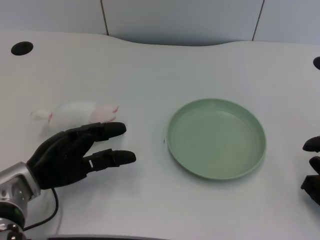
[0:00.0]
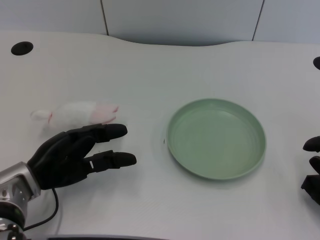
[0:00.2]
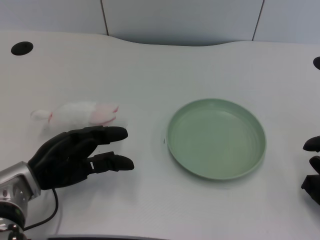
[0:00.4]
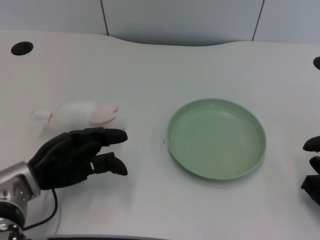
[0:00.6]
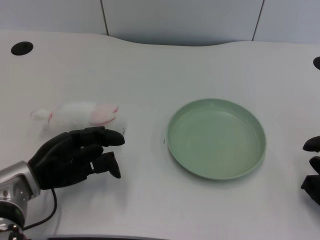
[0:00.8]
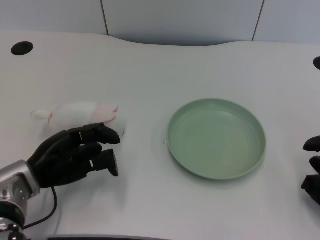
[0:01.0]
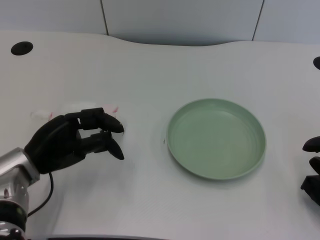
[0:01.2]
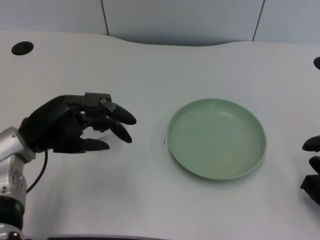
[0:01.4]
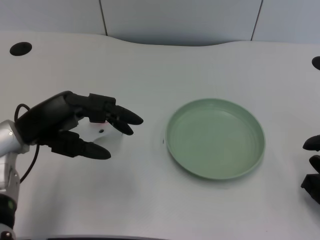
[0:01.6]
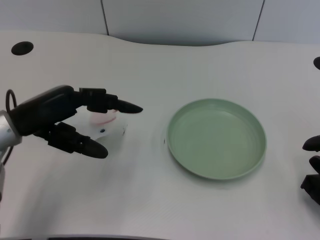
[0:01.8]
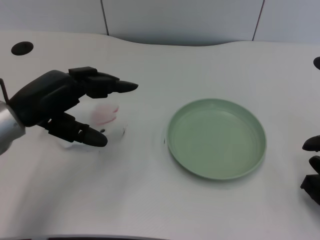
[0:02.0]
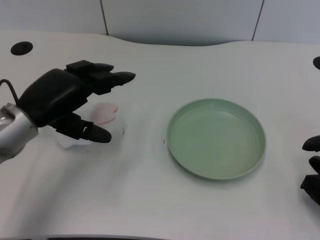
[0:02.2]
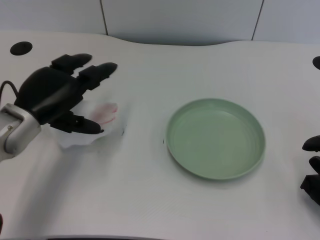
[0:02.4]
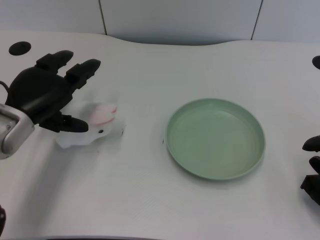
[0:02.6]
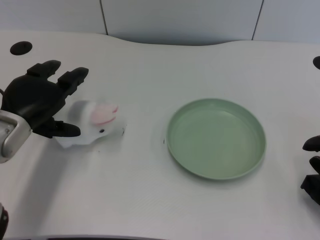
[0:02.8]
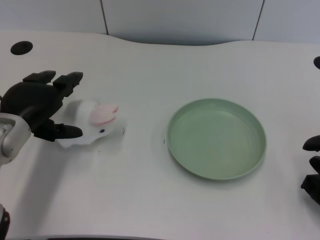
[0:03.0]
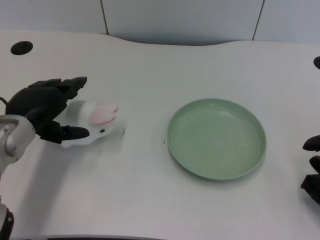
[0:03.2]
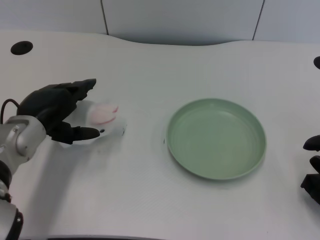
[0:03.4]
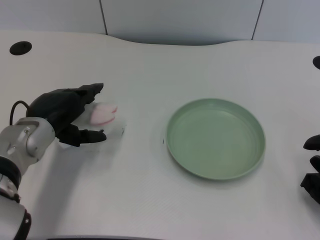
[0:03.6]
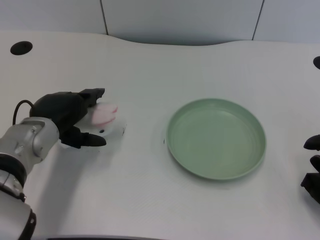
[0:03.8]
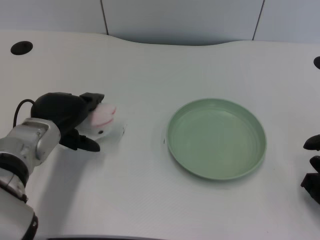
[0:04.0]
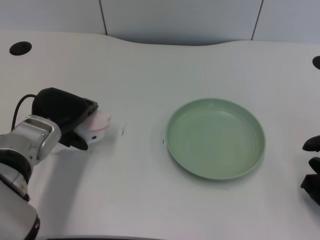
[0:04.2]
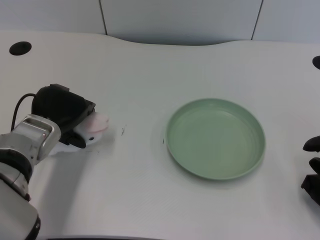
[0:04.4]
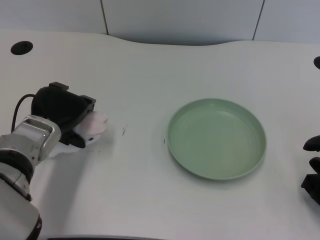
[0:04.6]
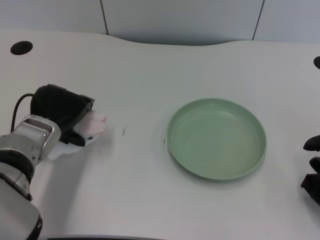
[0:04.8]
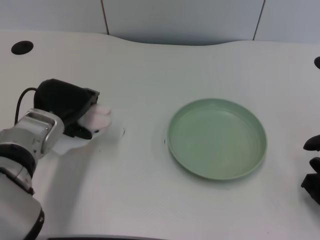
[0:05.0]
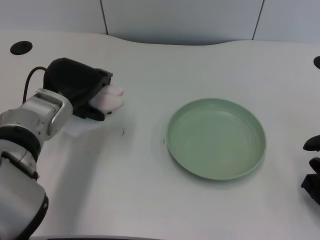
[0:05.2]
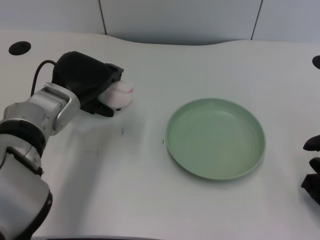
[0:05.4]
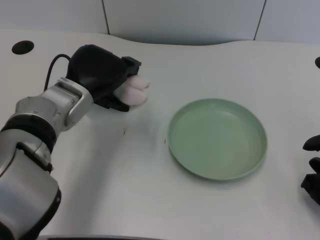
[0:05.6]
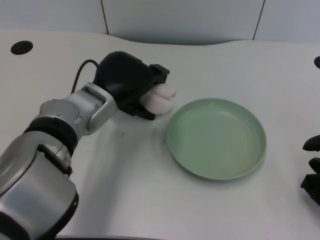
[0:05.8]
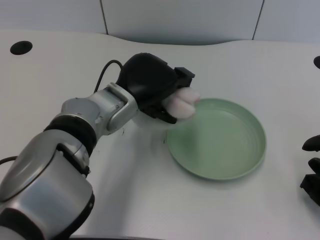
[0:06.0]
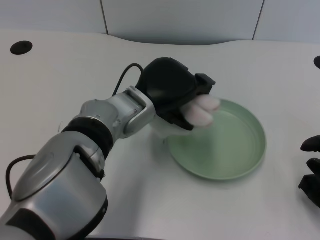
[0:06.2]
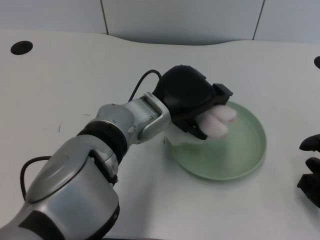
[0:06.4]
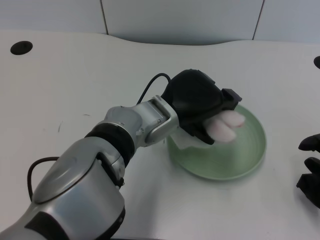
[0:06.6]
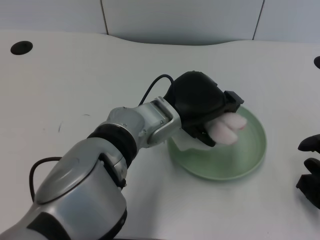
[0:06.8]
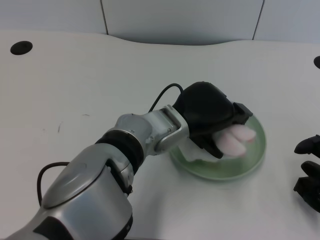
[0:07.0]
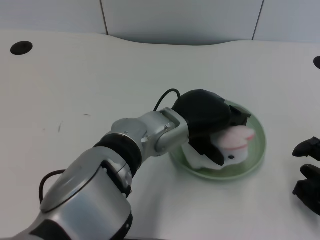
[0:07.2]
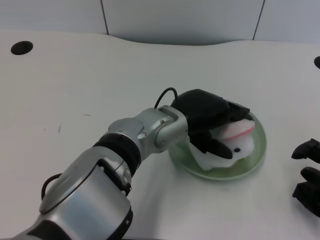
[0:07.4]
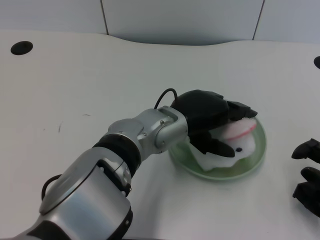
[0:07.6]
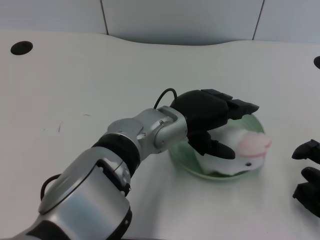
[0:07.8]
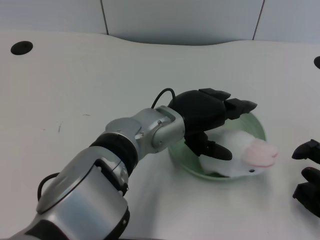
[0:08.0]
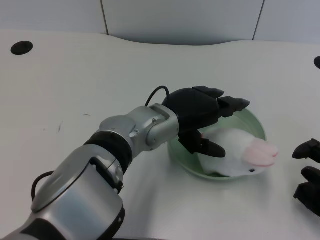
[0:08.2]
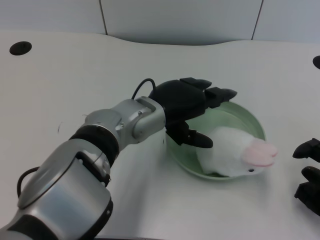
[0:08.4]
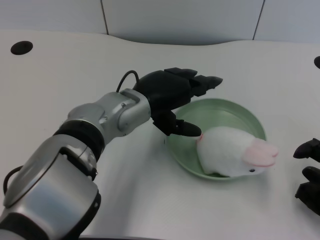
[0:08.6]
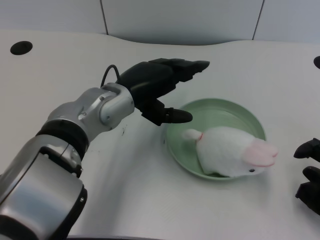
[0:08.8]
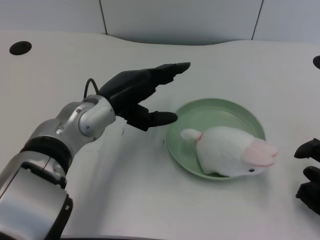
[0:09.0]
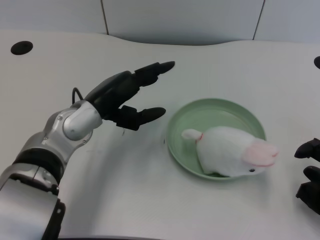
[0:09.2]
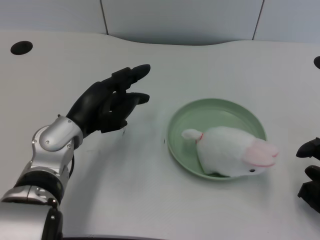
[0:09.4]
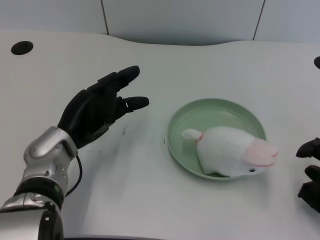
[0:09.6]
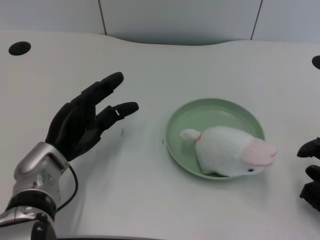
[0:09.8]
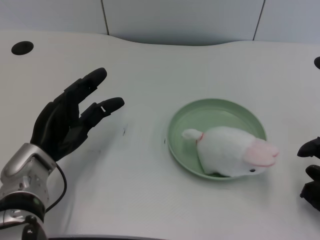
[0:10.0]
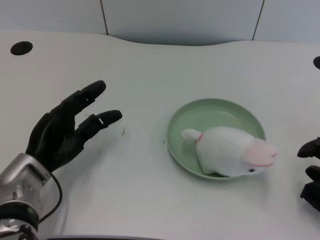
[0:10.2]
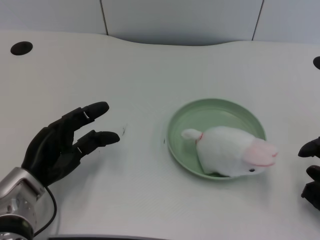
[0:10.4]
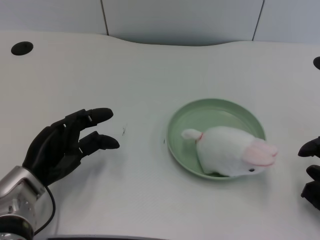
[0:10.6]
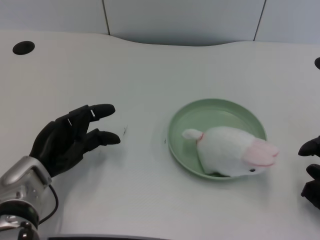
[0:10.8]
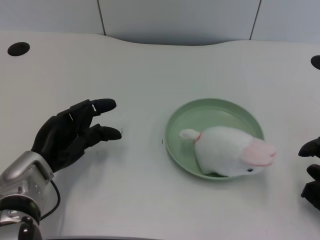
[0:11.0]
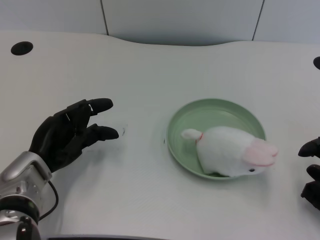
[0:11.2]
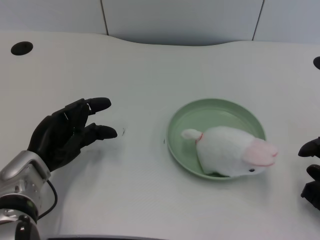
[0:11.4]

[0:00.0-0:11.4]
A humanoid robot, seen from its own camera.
Task of the whole recording: pick up the rabbit doll from the table and place it on the plate.
Step, 0:00.0 to 0:05.2: Grasp the rabbit doll with the left gripper.
Step, 0:05.4 to 0:07.8: Place the rabbit doll into the plate with the left gripper.
0:04.2 to 0:05.6: The left hand shifts roughly 5 cm to the right.
0:05.6 to 0:07.2: The left hand moves to the right, about 15 cm.
0:07.2 to 0:08.6: The left hand goes approximately 5 cm to the left.
0:08.6 to 0:10.0: The left hand heads to the left and downward, covering approximately 15 cm.
0:10.0 to 0:11.4: The hands stay close to where they were, moving slightly.

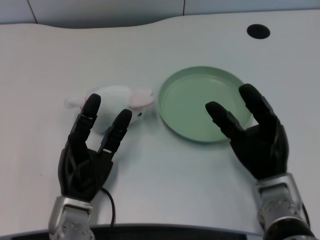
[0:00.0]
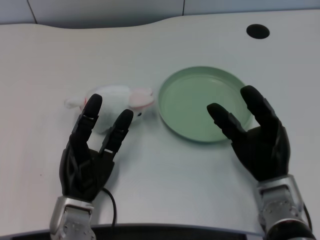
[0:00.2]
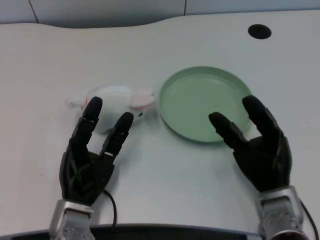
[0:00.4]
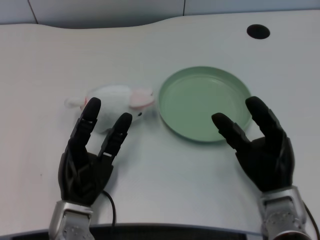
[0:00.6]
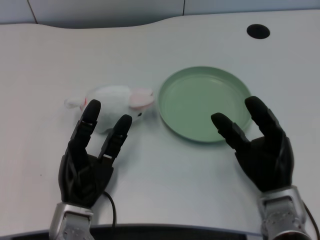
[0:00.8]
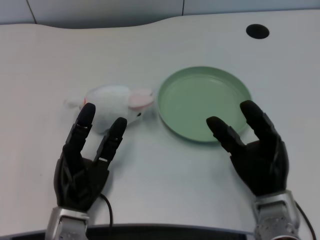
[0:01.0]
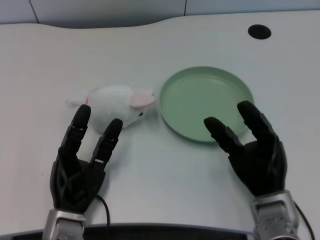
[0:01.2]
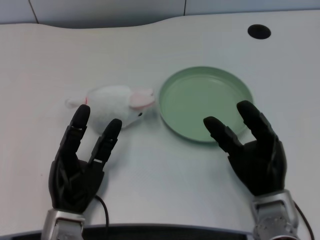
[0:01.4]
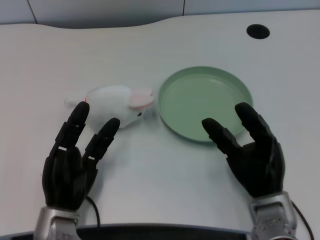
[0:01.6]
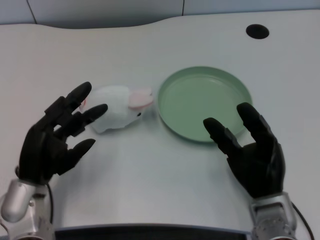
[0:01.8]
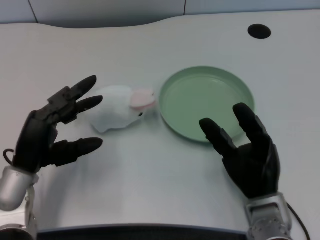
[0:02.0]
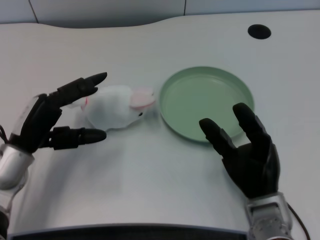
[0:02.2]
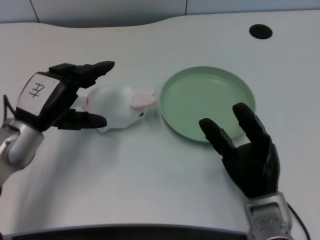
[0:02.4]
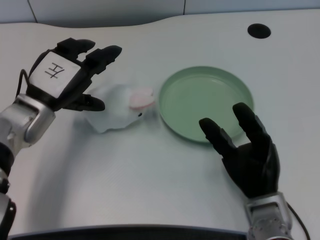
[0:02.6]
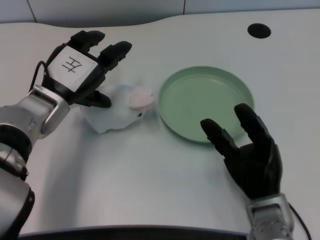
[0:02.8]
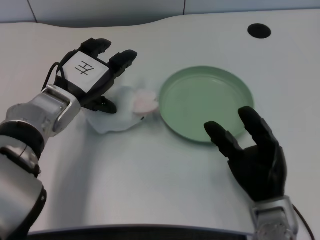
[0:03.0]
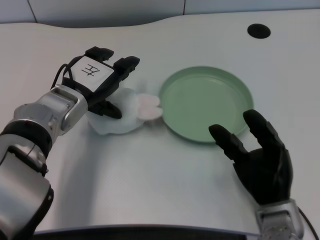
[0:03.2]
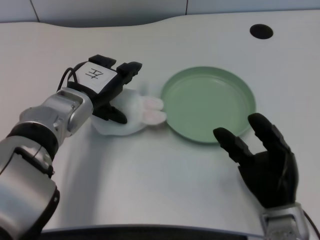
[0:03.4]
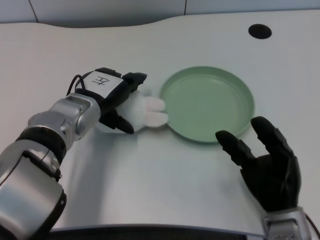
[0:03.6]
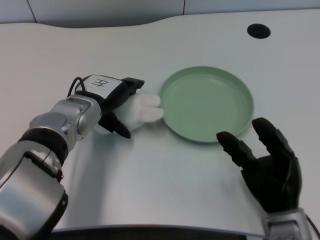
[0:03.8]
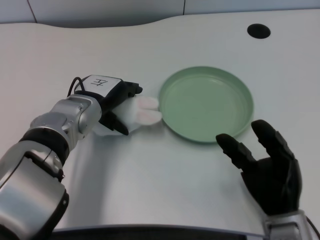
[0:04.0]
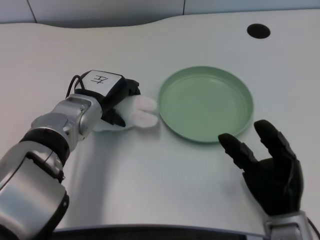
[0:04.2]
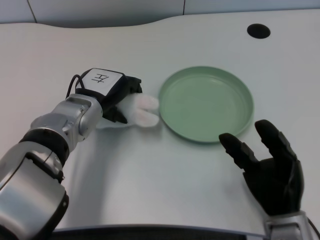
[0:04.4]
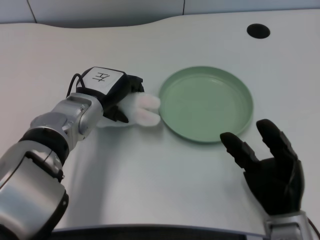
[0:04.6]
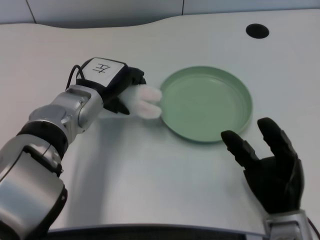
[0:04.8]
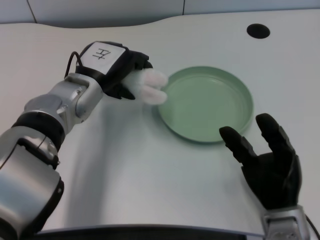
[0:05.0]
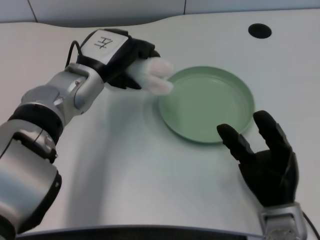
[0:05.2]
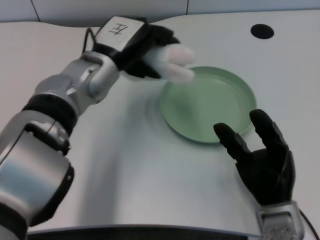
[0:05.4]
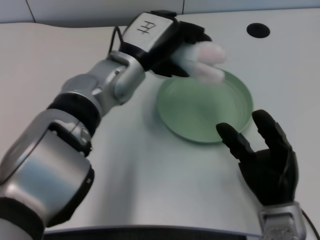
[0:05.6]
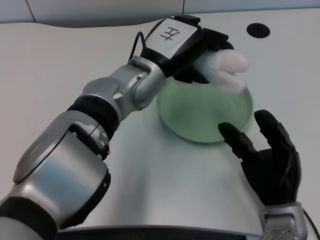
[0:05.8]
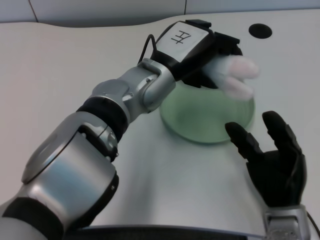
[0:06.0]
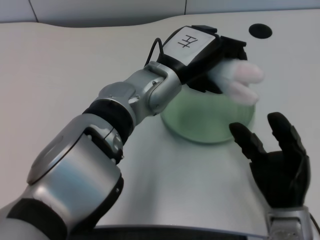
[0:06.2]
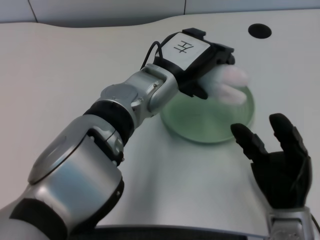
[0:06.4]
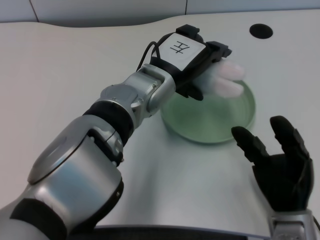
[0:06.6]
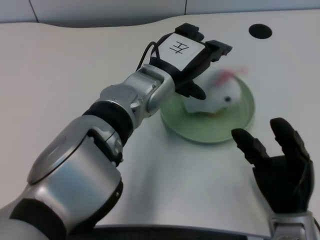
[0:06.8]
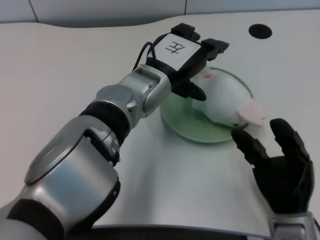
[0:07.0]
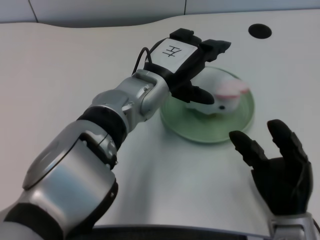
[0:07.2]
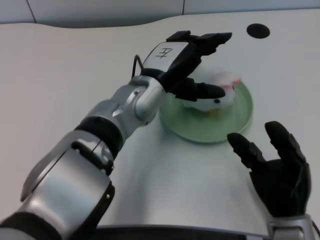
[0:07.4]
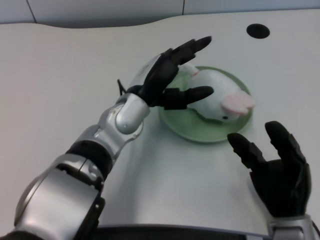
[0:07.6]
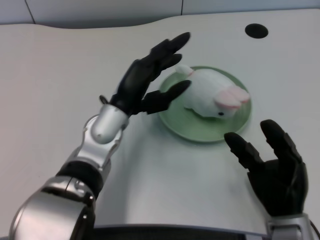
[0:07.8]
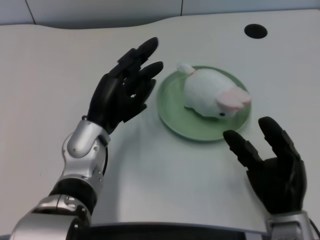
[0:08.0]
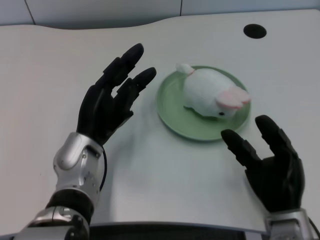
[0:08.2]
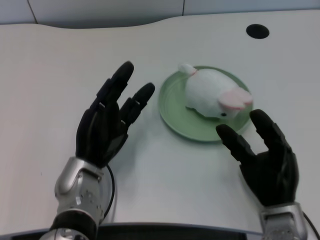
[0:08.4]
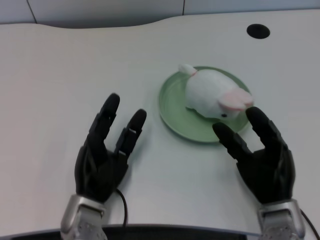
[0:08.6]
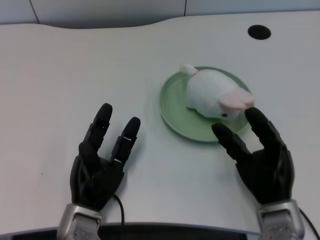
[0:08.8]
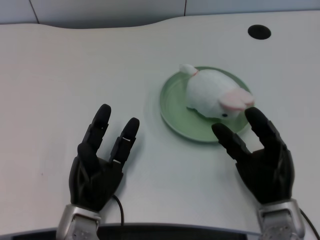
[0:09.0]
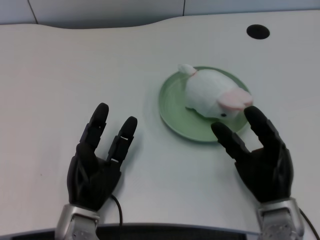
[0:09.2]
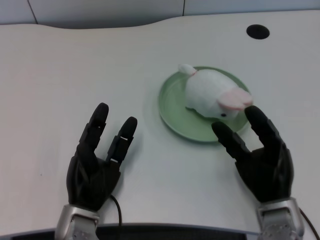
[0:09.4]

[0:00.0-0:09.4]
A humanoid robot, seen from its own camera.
Task of the whole recording: pick up the rabbit doll from the table and place it on the plate.
Step, 0:01.6 to 0:04.8: Grasp the rabbit doll with the left gripper.
Step, 0:05.0 to 0:07.0: Place the rabbit doll into the plate with the left gripper.
0:01.6 to 0:03.2: The left hand travels forward and upward by about 20 cm.
0:04.8 to 0:06.2: The left hand shifts roughly 10 cm to the right.
0:06.2 to 0:07.8: The left hand is displaced to the left and downward by roughly 10 cm.
0:07.8 to 0:09.4: The left hand moves downward and backward, roughly 15 cm.

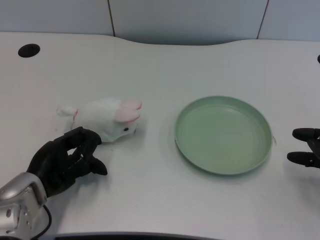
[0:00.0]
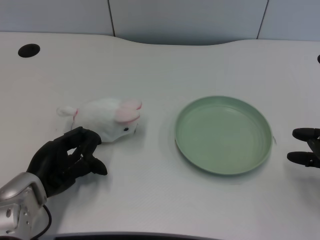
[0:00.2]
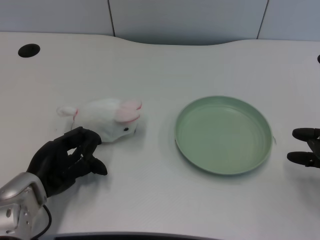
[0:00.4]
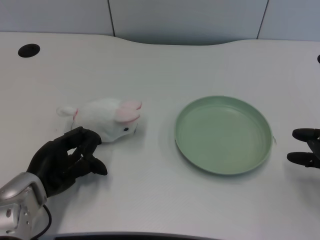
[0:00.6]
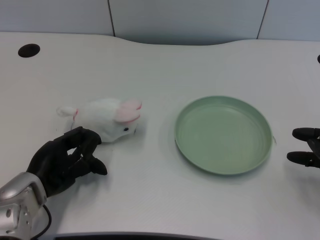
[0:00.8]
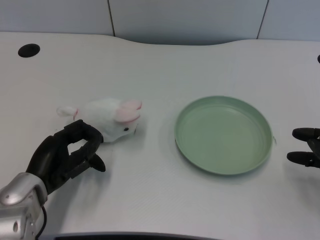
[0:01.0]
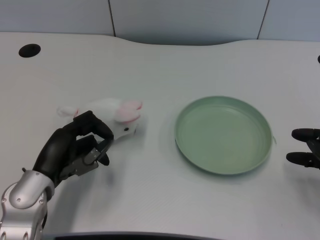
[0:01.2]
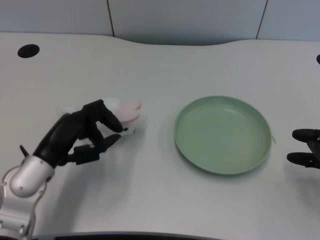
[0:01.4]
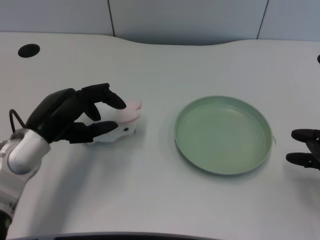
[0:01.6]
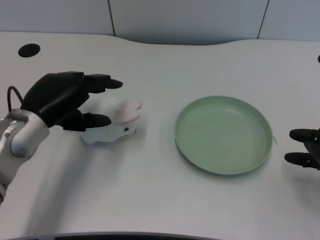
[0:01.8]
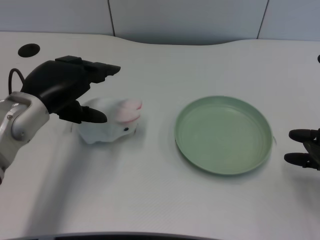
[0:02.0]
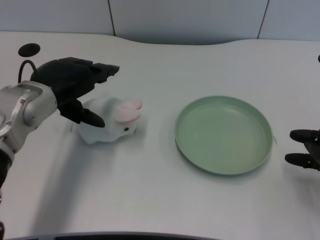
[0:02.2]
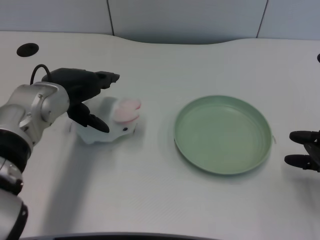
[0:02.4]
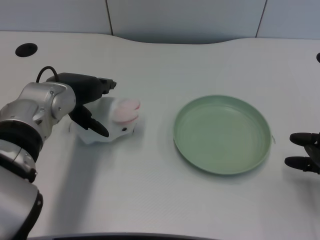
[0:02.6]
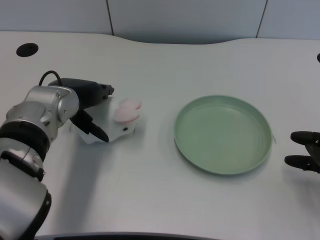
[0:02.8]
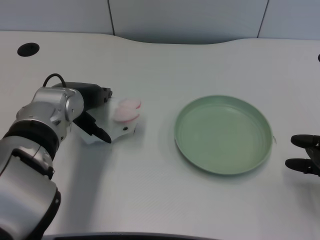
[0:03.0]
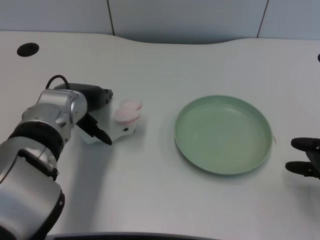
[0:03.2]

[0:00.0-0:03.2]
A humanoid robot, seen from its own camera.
Task of the whole recording: pick up the rabbit doll from the table and place it on the plate.
0:01.6 to 0:03.2: The left hand goes approximately 10 cm forward and to the right.
